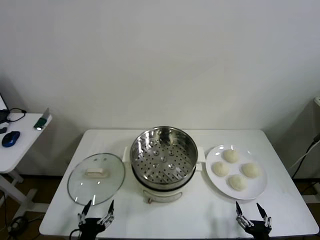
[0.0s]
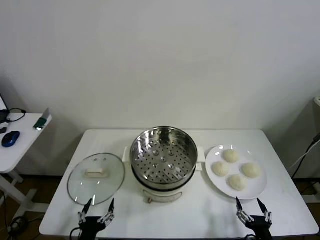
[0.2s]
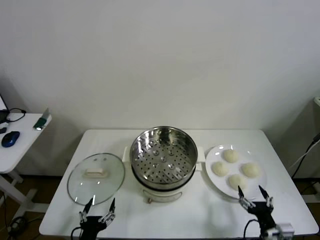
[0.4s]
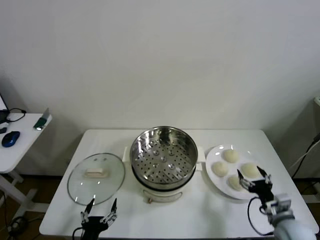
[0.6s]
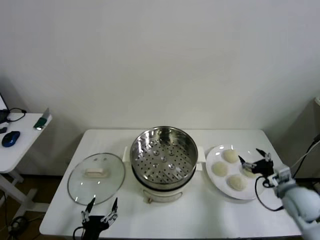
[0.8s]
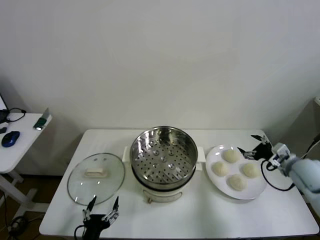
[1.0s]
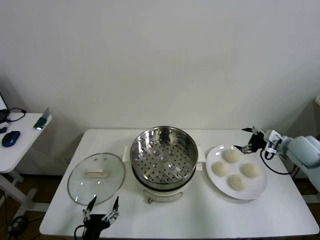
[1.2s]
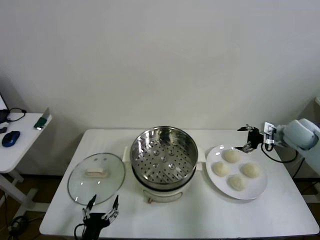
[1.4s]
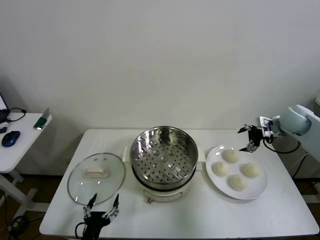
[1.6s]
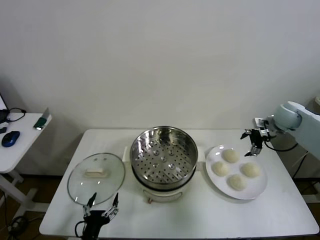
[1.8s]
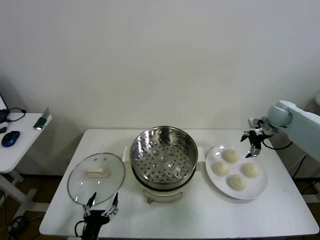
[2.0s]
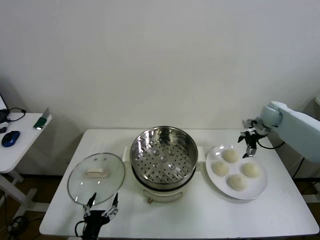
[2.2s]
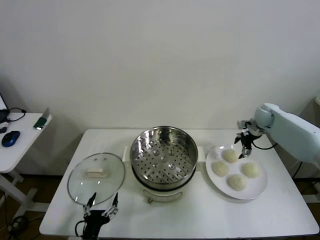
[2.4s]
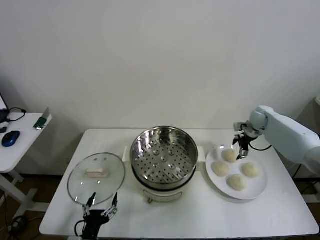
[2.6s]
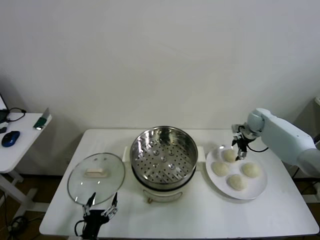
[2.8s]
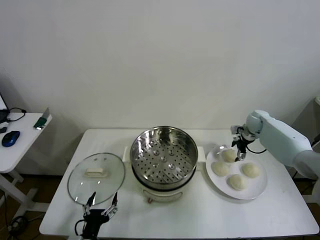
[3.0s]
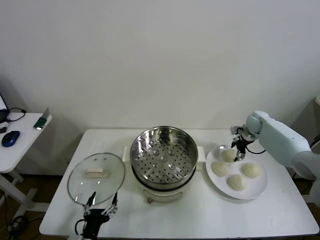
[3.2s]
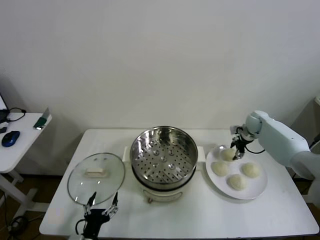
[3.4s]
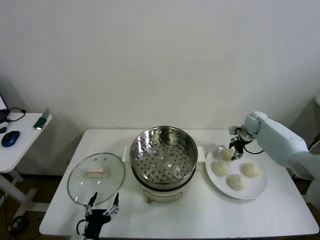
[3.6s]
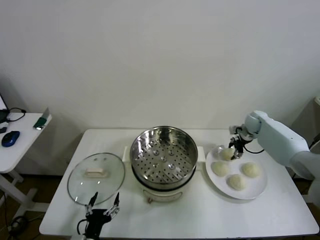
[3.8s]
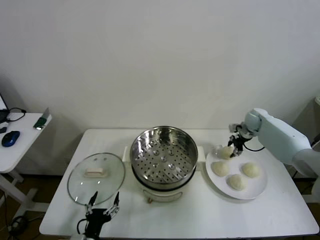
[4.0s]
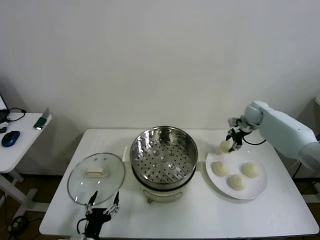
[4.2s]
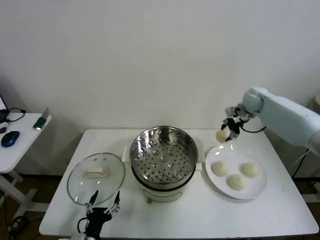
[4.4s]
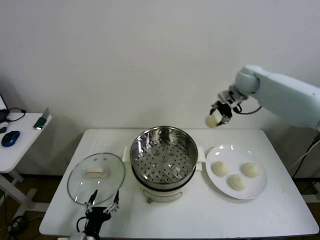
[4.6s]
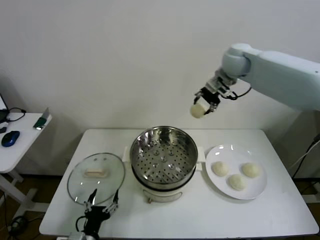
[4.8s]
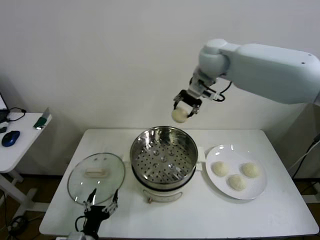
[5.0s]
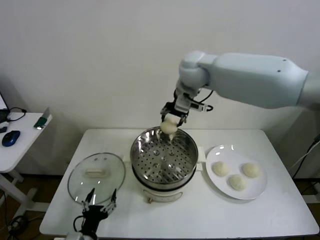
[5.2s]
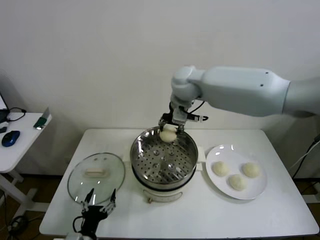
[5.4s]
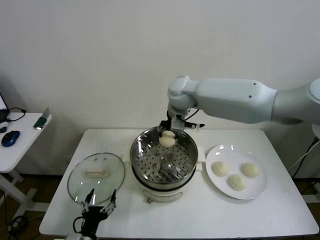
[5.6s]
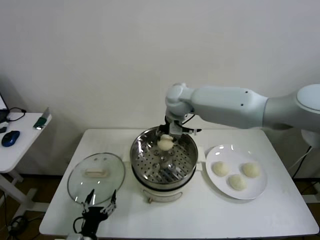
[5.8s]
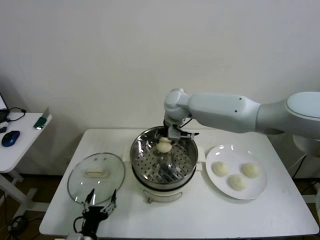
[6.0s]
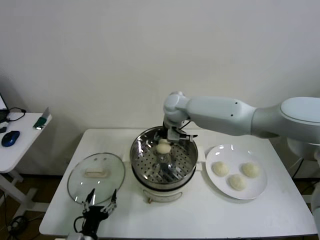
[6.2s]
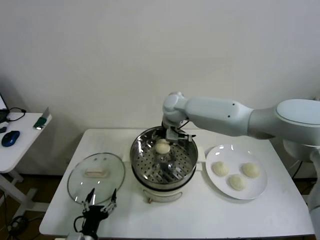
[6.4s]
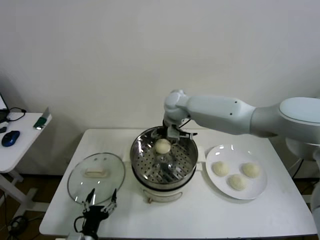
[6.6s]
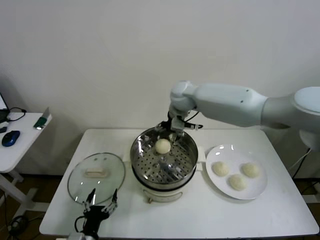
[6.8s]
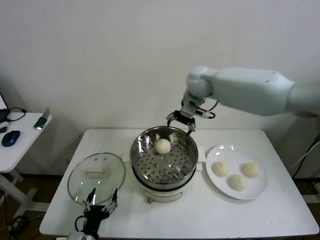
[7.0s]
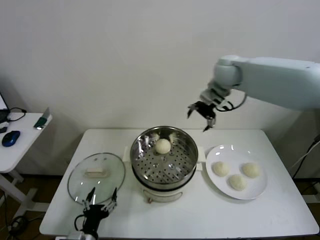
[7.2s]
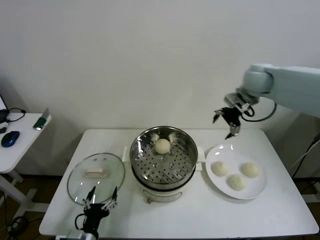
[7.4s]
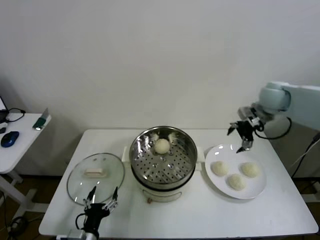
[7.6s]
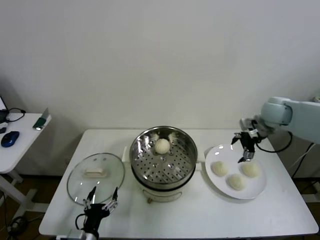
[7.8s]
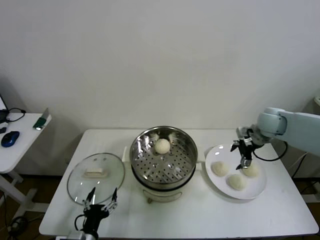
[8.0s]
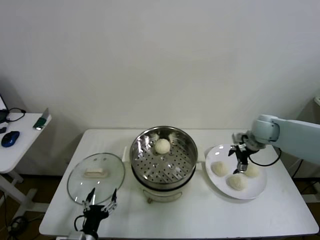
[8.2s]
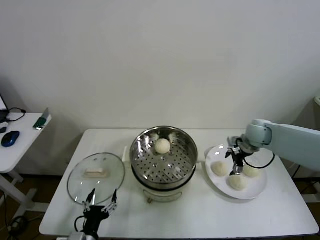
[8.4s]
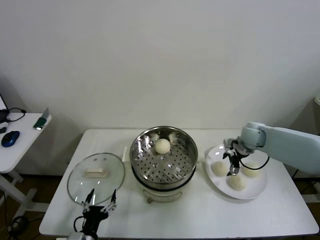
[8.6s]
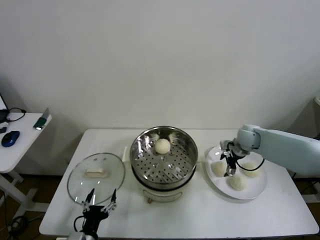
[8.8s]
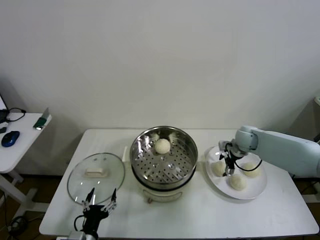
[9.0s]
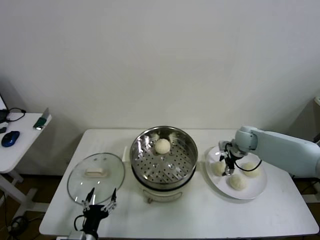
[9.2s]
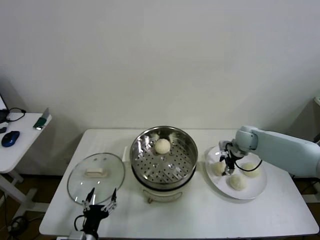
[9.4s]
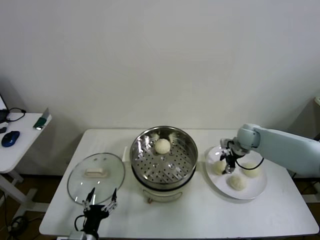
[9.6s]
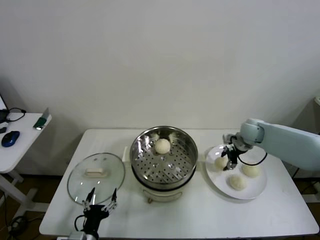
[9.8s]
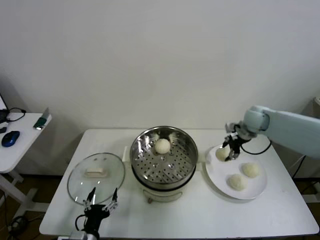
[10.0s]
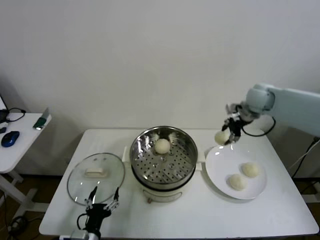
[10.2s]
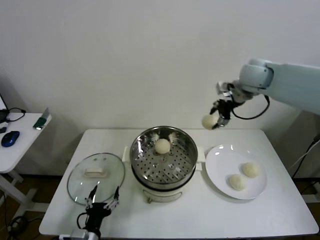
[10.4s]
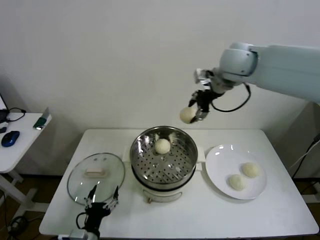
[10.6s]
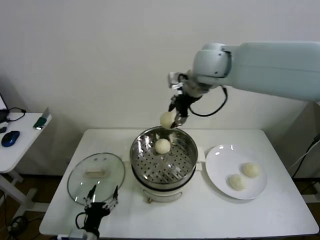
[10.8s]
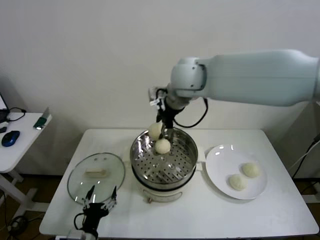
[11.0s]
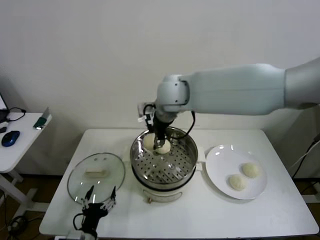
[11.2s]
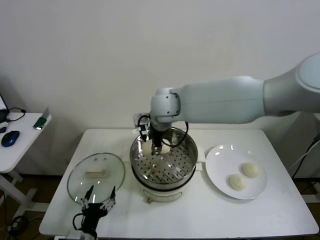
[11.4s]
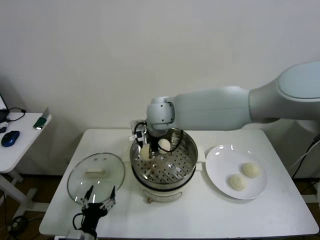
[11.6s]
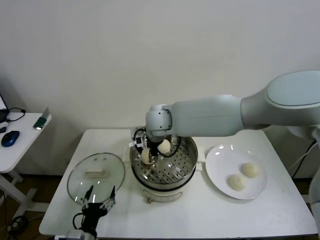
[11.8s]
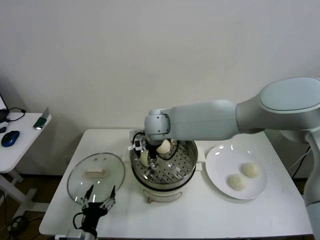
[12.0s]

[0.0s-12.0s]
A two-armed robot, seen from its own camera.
Step, 0.0s to 3.4s: Grasp the baozi in the plate with right gripper.
Step, 3.8s to 6.6s: Place the baozi on the steamer with right gripper.
Step, 6.8s to 9.2s: Grasp the baozi in the plate with right gripper.
1.6s to 3.0s: The right gripper travels downward and forward by approximately 15 cm.
3.0s to 4.4s: The right gripper shifts approximately 20 cm upward and to the left, and closes up.
4.4s to 6.0s: The right gripper is displaced to the left by some 30 cm.
6.0s to 7.6s: The right gripper travels to the right by roughly 30 cm, and opens its fingers.
7.6s to 9.0s: The right gripper is displaced downward by roughly 20 cm.
9.0s to 10.4s: The right gripper heads upward, covering about 30 cm, and closes up.
10.4s to 12.0s: The right gripper moves to the left and downward, roughly 30 cm.

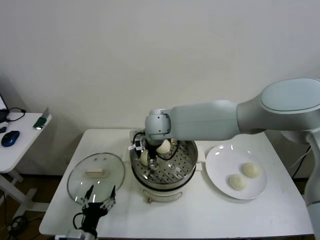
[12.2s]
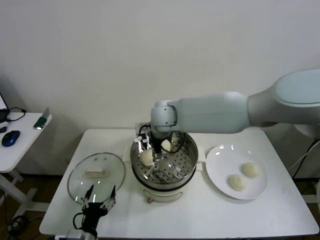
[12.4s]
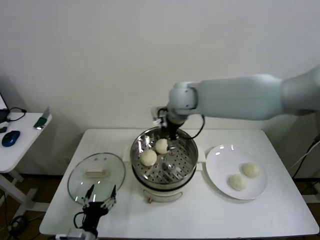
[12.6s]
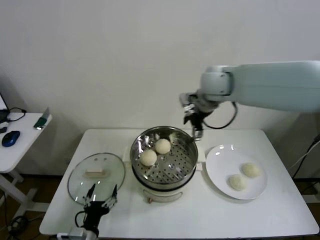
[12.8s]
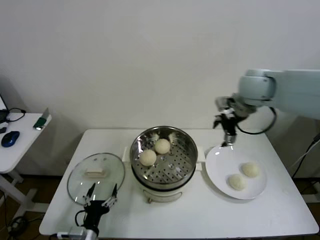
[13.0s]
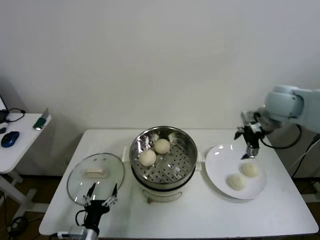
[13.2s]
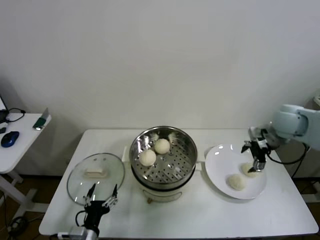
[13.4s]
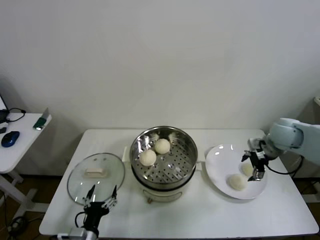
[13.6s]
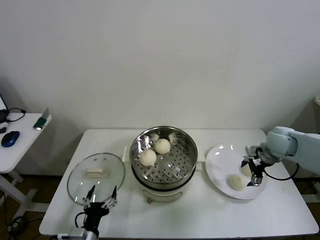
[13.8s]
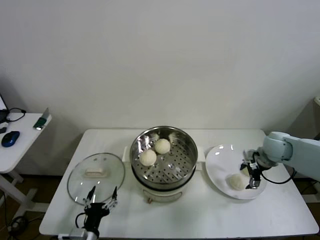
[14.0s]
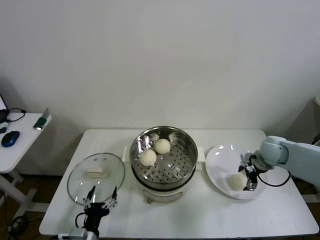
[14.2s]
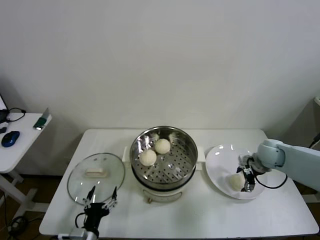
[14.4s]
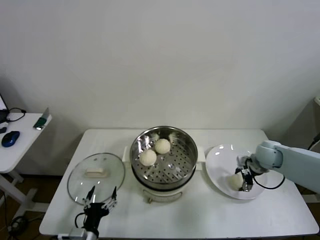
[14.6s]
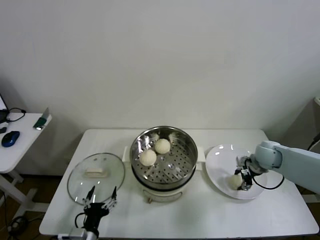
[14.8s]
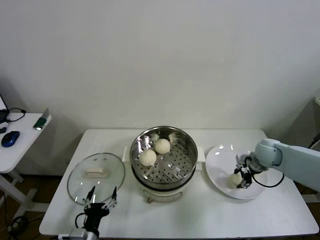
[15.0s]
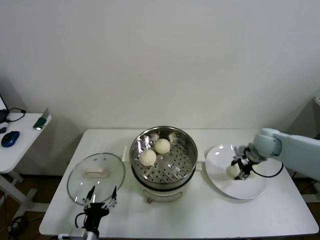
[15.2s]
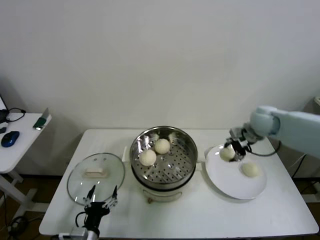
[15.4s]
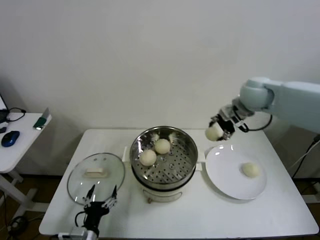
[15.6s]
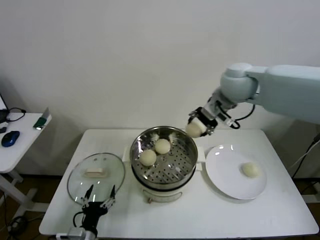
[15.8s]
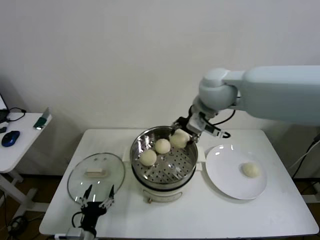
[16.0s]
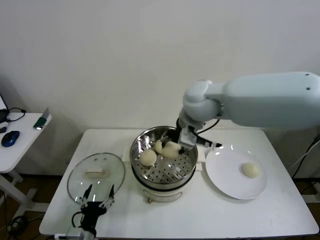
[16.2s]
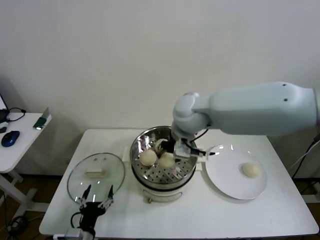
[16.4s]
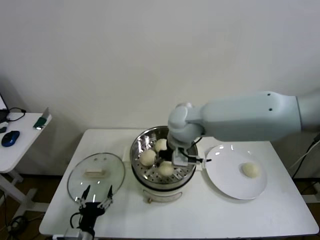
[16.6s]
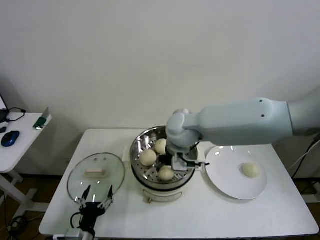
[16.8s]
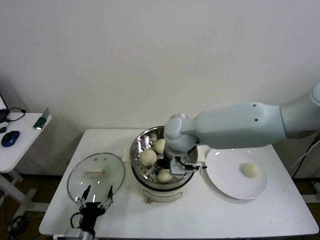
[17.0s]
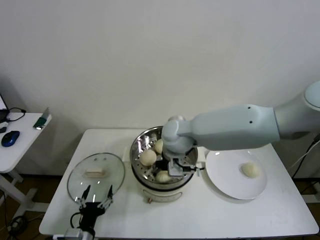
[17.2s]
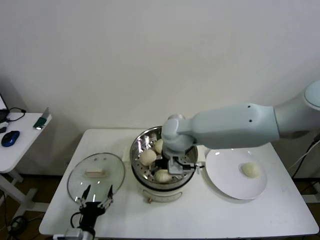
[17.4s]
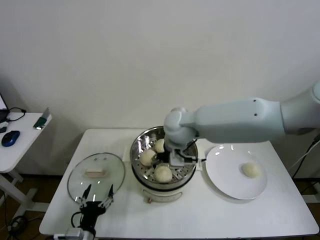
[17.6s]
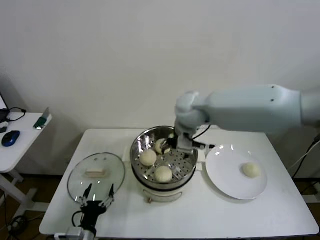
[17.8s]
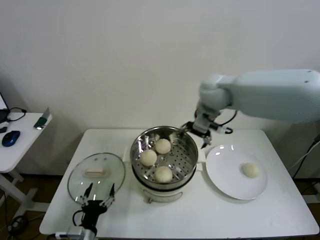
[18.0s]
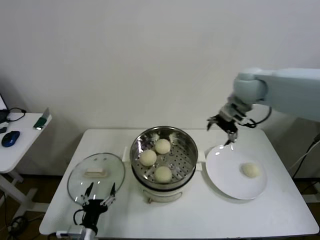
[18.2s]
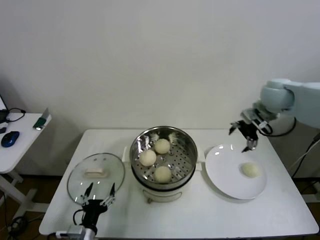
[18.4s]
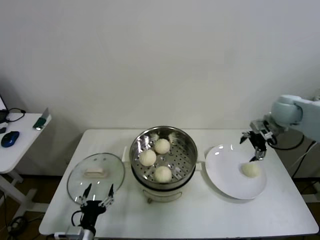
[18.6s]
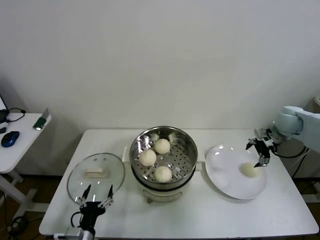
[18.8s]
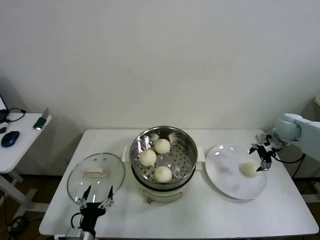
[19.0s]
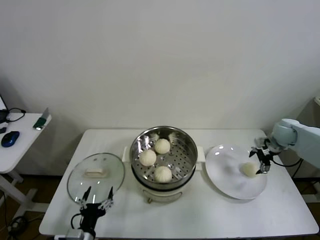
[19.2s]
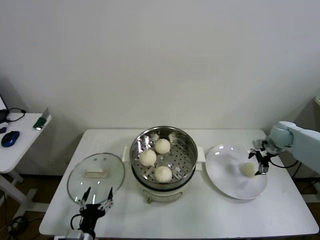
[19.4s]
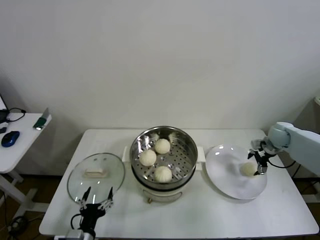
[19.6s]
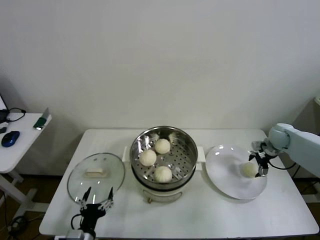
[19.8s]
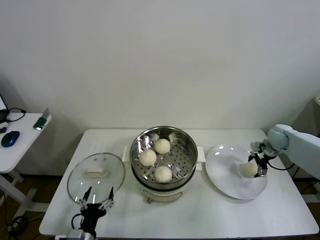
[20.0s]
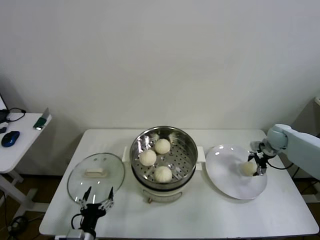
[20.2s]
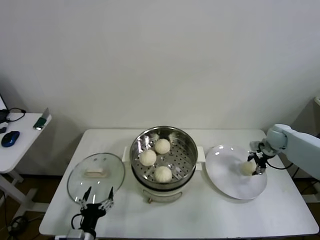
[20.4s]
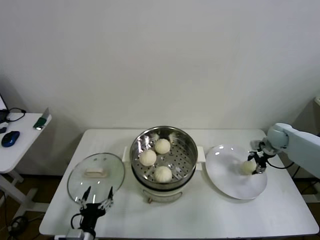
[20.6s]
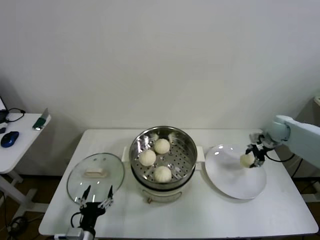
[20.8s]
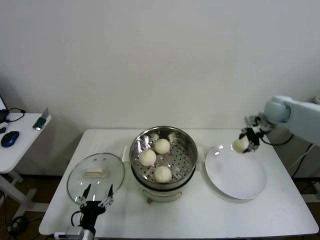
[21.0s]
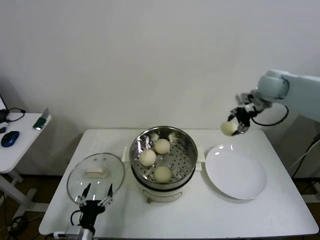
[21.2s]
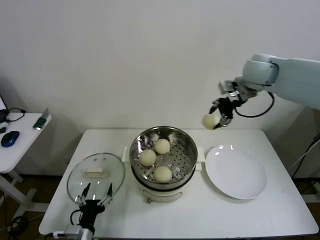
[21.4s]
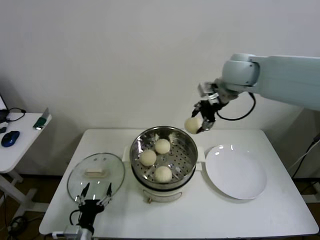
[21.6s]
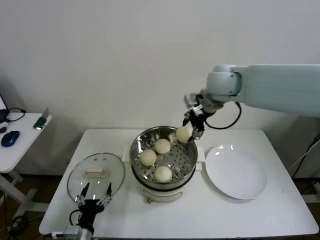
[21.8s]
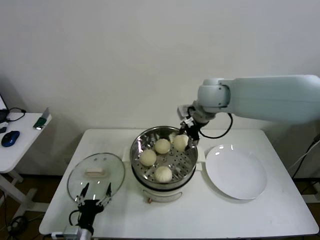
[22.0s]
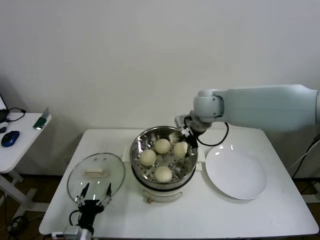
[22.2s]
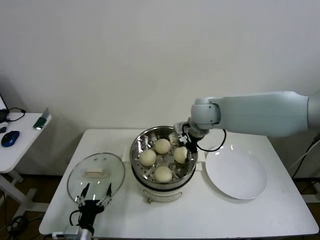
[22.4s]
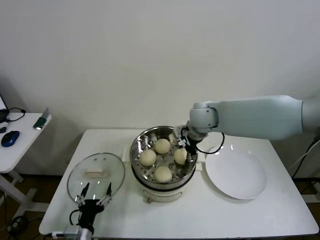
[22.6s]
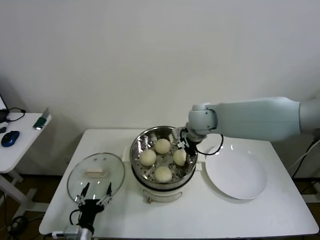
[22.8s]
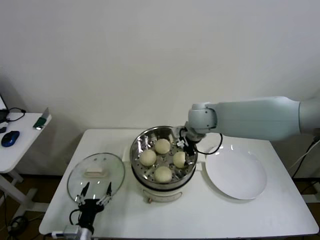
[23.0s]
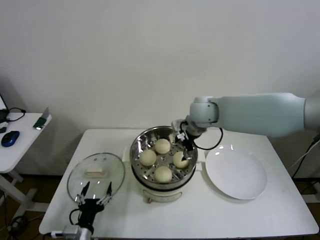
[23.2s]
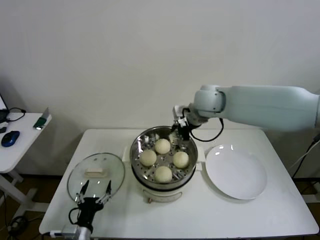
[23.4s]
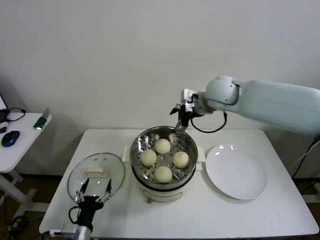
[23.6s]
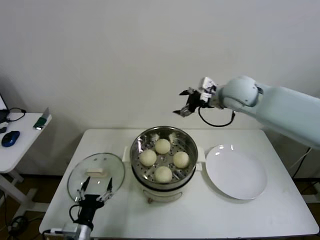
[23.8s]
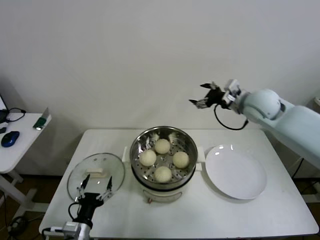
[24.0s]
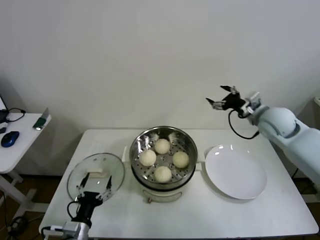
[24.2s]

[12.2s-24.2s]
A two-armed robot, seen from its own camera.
Step, 12.6s to 14.6s: Grasp the baozi in the plate with right gripper.
Step, 14.8s to 17.6s: Place the baozi on the steamer with right gripper.
Step, 17.8s to 20.2s: Grasp the baozi in the plate with right gripper.
Step, 20.6s to 23.2s: Place the baozi on the steamer with right gripper.
12.2s to 13.8s: The right gripper is displaced to the right by some 40 cm.
13.8s to 15.2s: The right gripper closes.
15.2s to 16.6s: The right gripper shifts roughly 30 cm to the left.
16.6s to 18.2s: The right gripper shifts some 20 cm to the right, and opens.
18.2s to 19.8s: The right gripper heads downward and to the right, covering approximately 30 cm.
19.8s to 21.2s: The right gripper travels upward and to the left by approximately 25 cm, and closes up.
21.2s to 22.6s: The right gripper is displaced to the left by roughly 20 cm.
22.6s to 24.2s: The right gripper heads to the right, covering approximately 20 cm, and opens.
